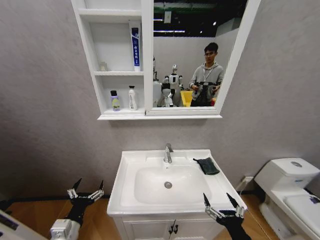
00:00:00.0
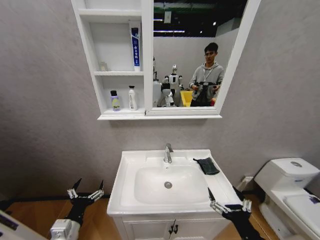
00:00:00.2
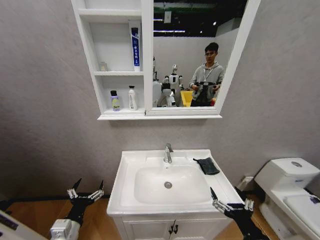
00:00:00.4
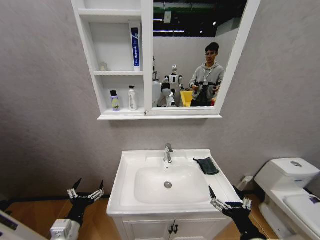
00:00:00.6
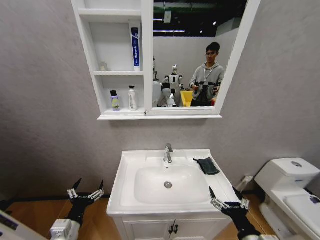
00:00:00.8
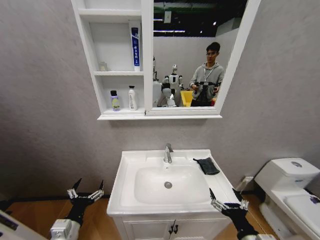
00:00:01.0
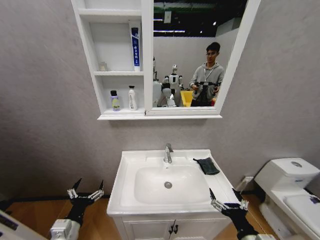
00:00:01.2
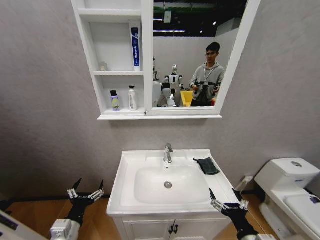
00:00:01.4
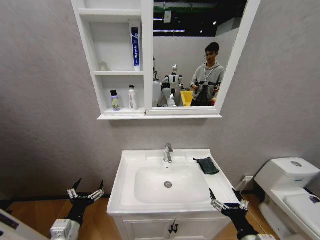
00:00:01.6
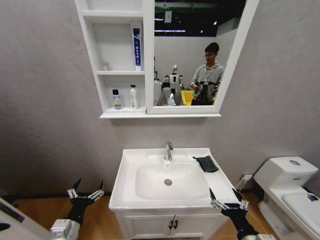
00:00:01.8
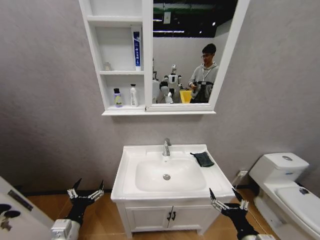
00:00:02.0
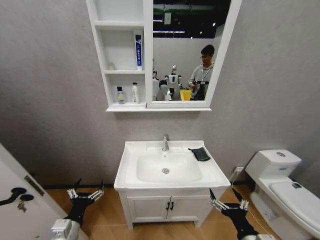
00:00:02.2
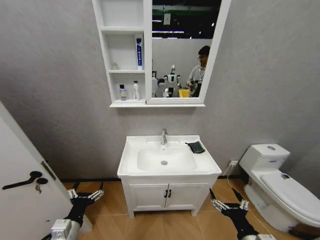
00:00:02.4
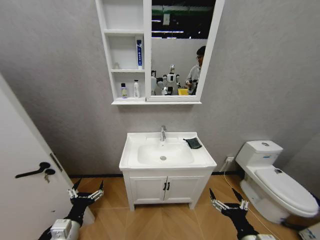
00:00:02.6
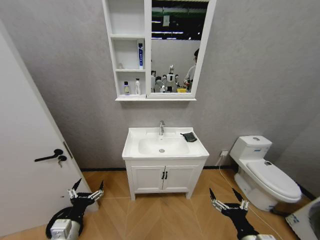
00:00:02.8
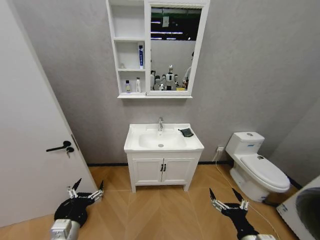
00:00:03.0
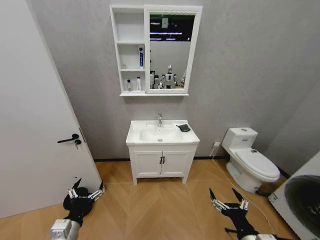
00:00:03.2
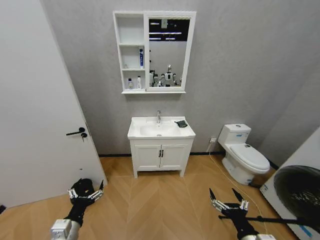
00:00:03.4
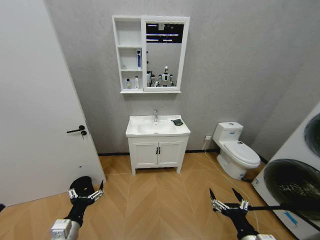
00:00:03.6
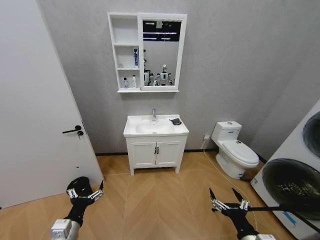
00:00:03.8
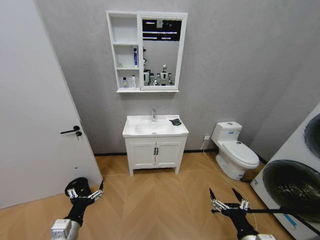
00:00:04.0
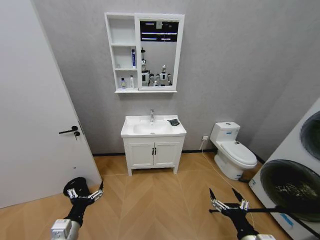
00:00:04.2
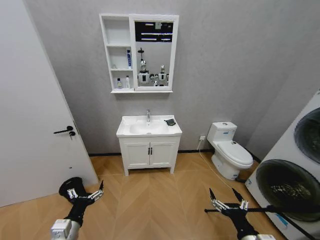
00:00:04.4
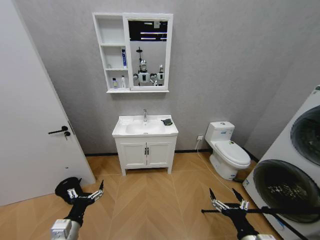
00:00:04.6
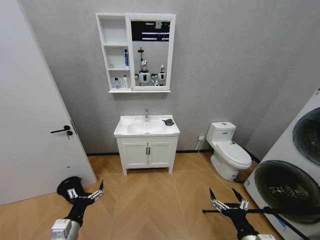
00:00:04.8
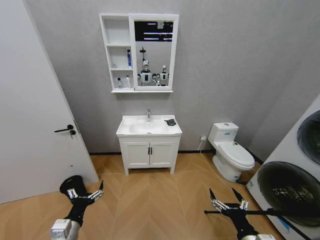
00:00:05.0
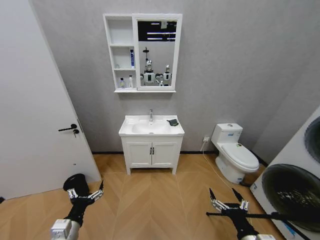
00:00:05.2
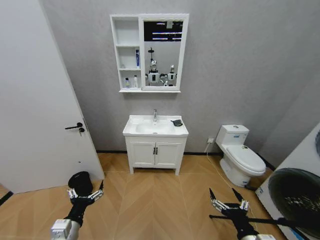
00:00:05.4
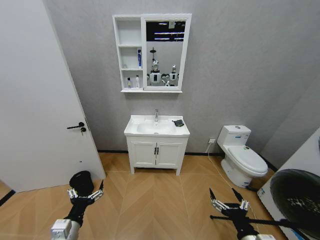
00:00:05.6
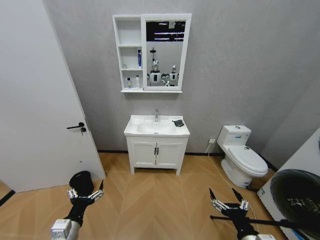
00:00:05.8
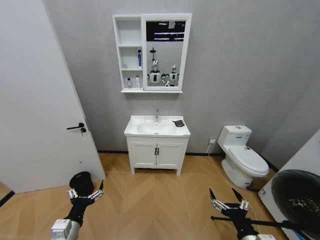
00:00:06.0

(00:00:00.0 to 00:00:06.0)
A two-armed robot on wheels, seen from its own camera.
Task of the whole recording: Move facial cleanser and shampoo from washbasin to cabinet, then wipe washbasin with towel.
00:00:00.0 - 00:00:01.6: The grippers stay close to where they were, moving slightly.
